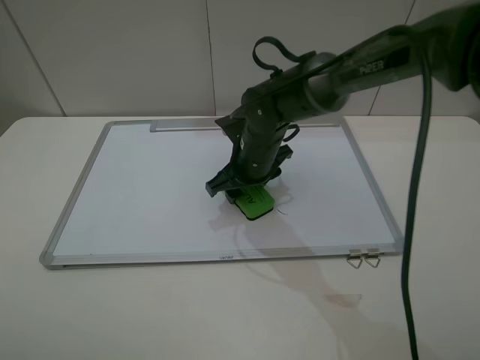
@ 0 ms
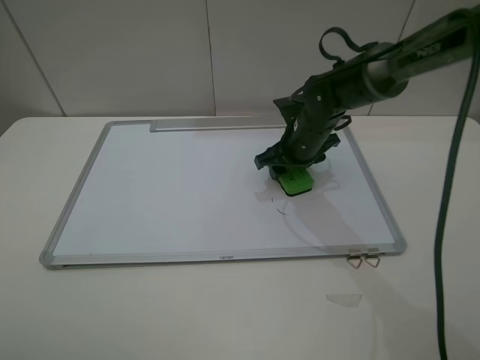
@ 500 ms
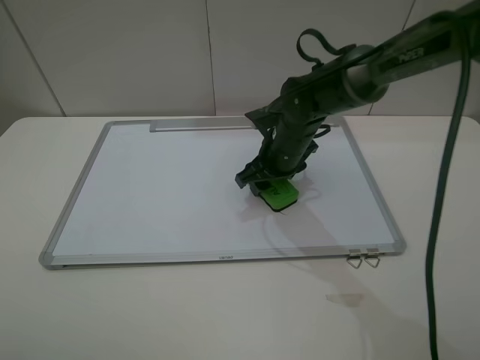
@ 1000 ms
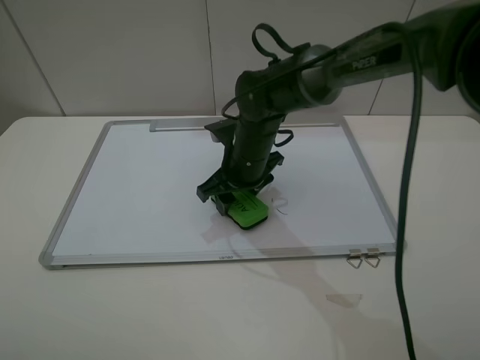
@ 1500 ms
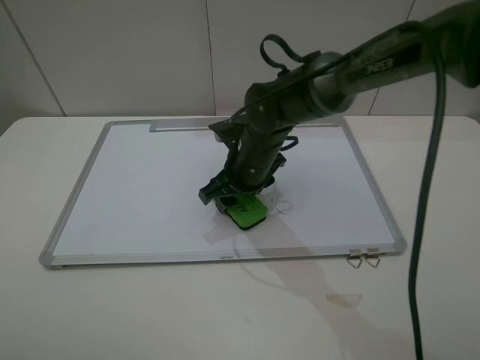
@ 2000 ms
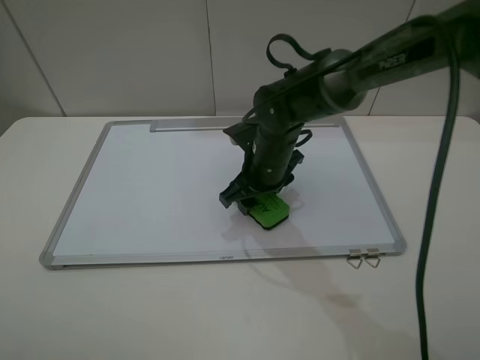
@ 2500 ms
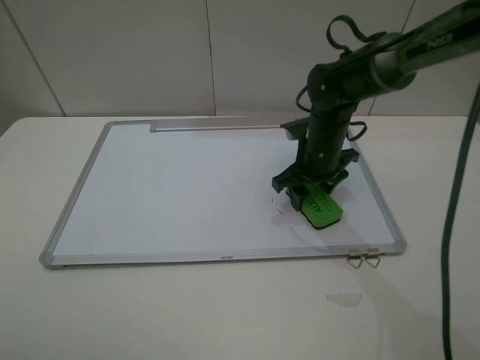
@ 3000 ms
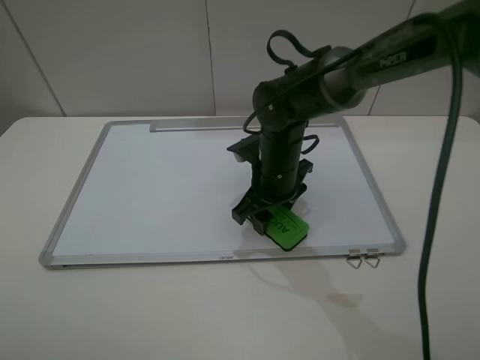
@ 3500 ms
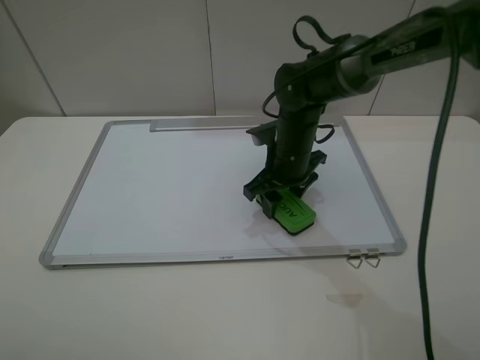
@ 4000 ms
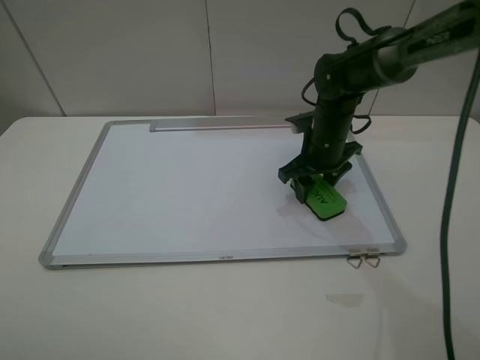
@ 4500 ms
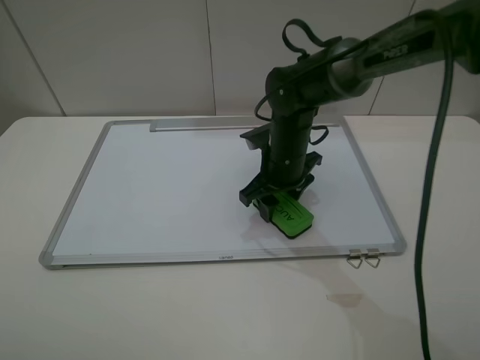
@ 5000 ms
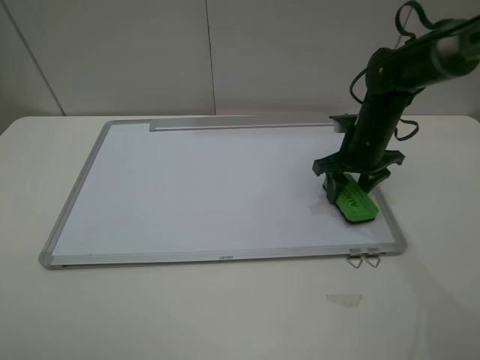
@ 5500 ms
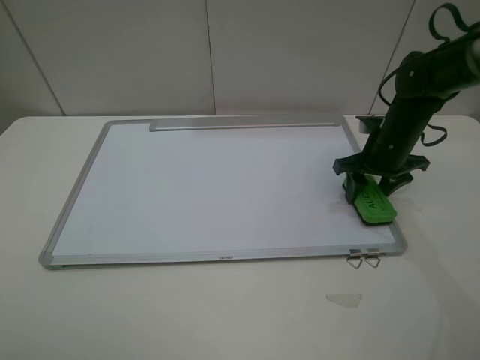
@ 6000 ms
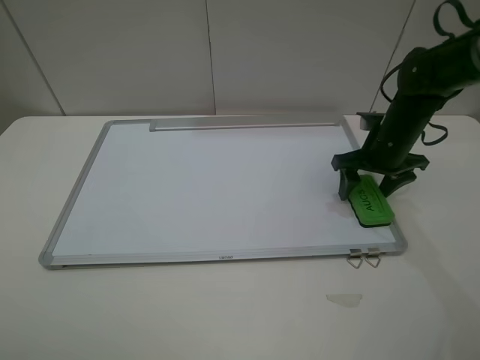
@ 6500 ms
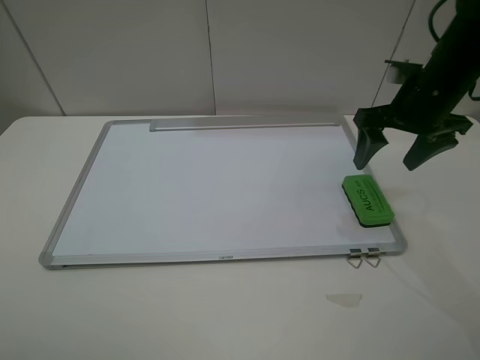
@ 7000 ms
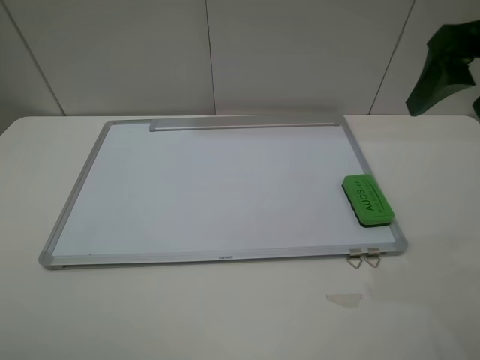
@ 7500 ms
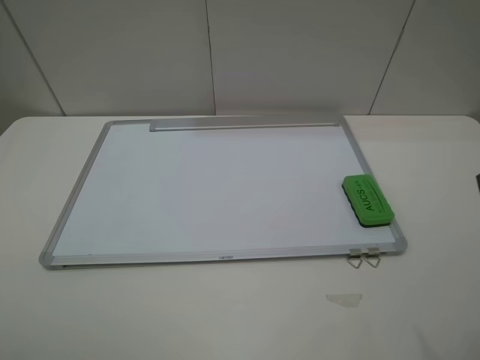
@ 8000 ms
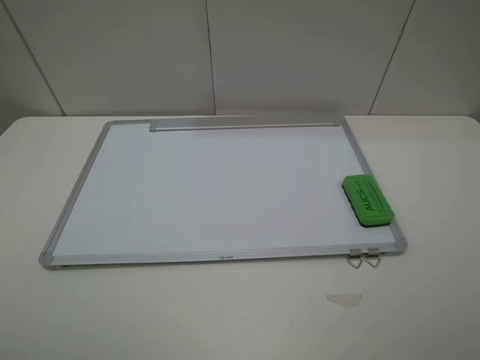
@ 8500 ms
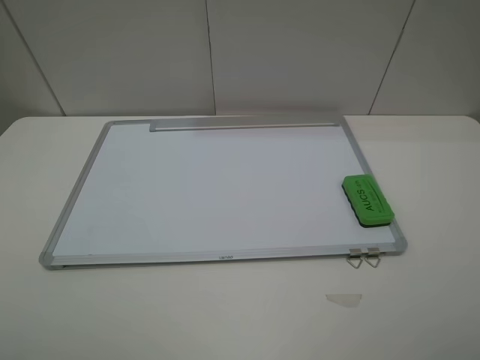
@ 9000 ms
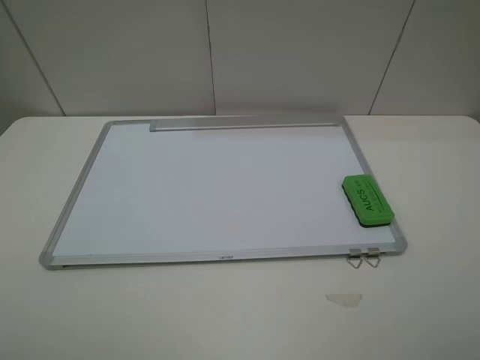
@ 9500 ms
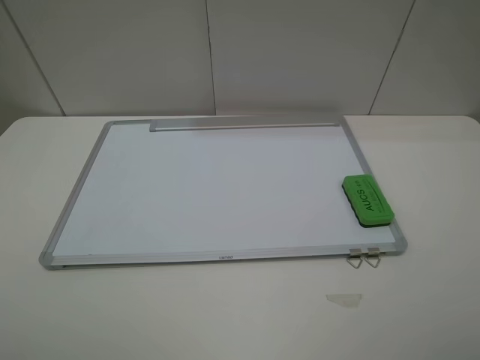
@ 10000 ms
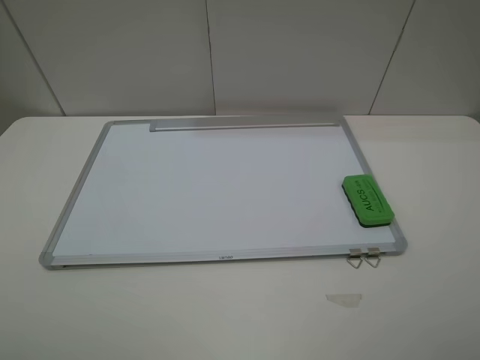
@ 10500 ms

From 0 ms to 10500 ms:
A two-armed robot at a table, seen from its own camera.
Step, from 0 ms to 5000 ms: Grasp the eraser and wipe the blackboard with the right gripper.
Step, from 5500 ms to 6500 ms: Place the eraser with the right gripper.
From 0 ms to 2000 ms: The right gripper moves some 10 cm to the right and comes back.
From 2000 ms to 4000 ms: The right gripper goes left and right, about 10 cm each way, reversing 2 times.
From 4000 ms to 6500 ms: The right gripper moves left and right over about 15 cm, changing direction 2 times, and opens up.
From 6500 ms to 8500 ms: The right gripper goes roughly 35 cm backward and upward.
